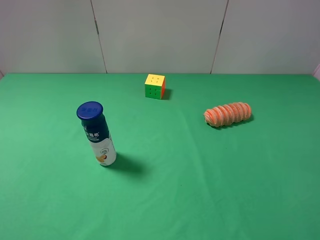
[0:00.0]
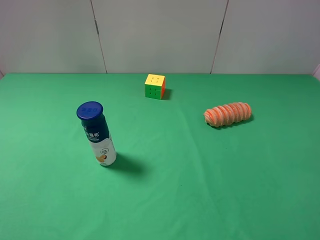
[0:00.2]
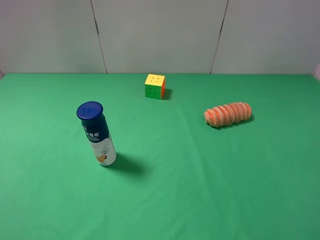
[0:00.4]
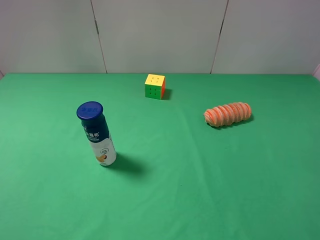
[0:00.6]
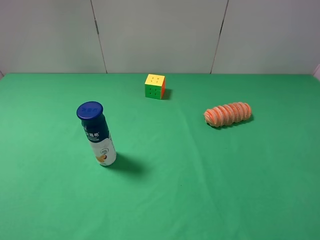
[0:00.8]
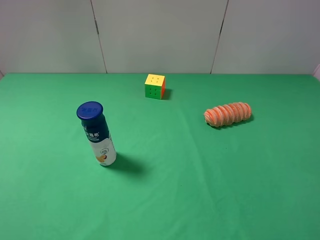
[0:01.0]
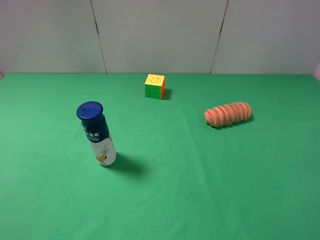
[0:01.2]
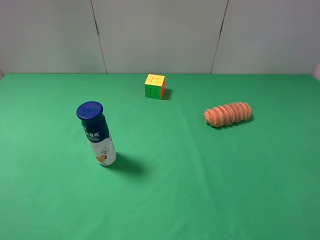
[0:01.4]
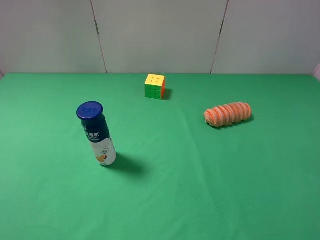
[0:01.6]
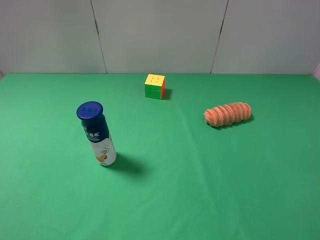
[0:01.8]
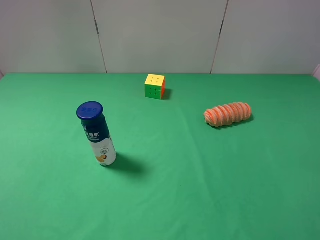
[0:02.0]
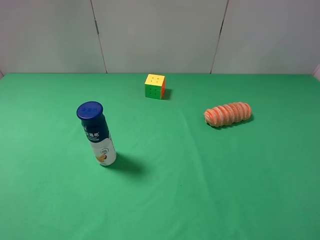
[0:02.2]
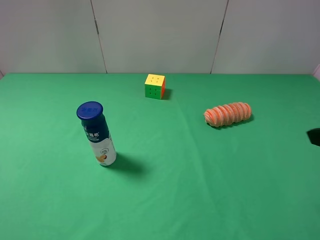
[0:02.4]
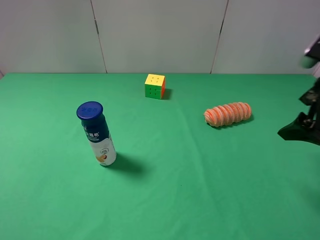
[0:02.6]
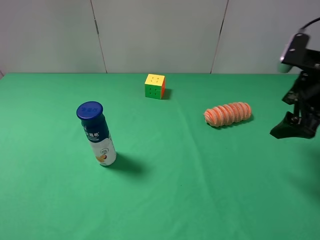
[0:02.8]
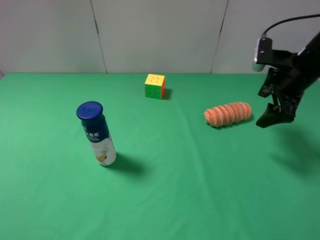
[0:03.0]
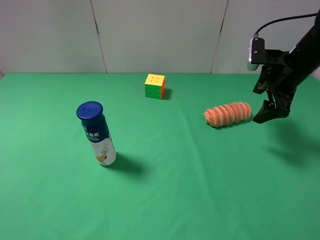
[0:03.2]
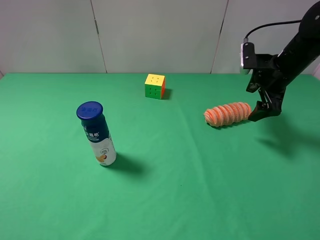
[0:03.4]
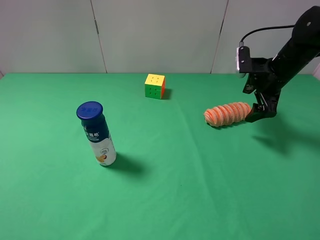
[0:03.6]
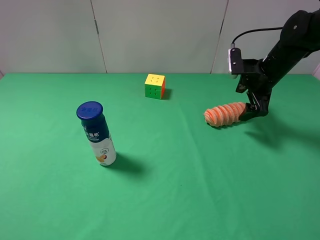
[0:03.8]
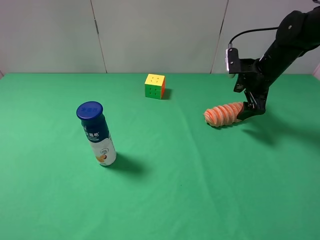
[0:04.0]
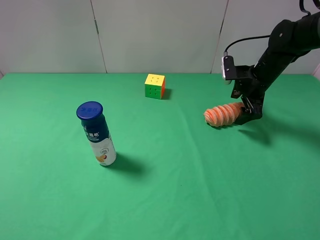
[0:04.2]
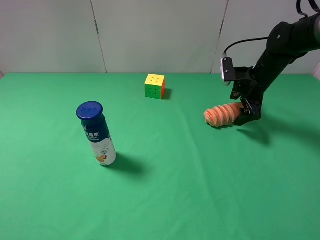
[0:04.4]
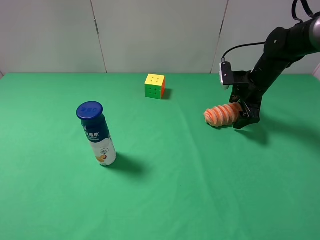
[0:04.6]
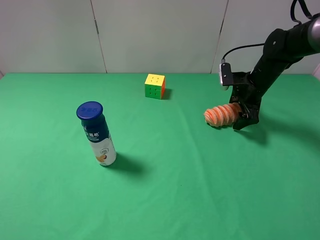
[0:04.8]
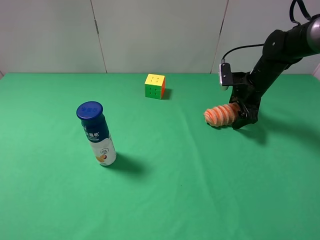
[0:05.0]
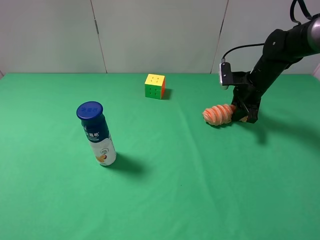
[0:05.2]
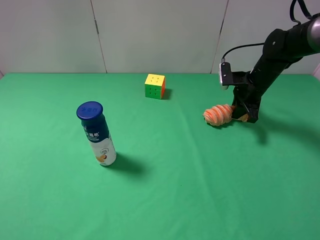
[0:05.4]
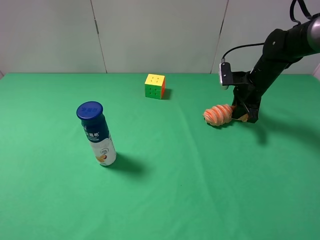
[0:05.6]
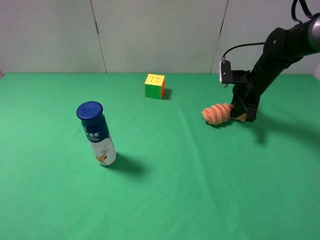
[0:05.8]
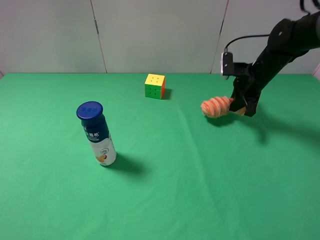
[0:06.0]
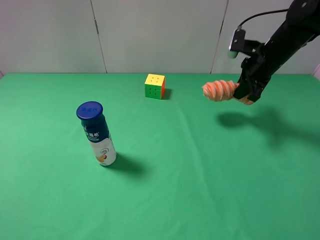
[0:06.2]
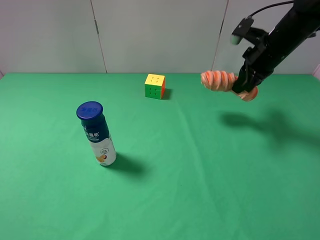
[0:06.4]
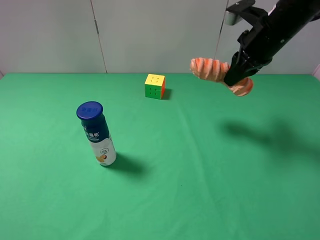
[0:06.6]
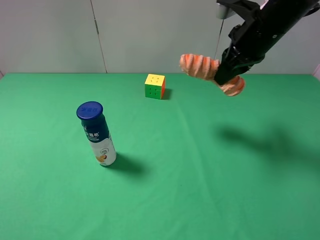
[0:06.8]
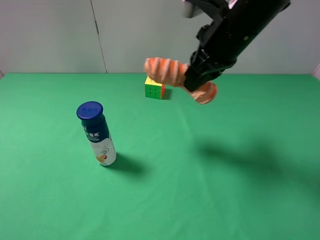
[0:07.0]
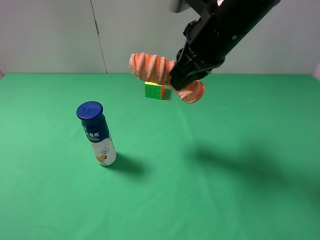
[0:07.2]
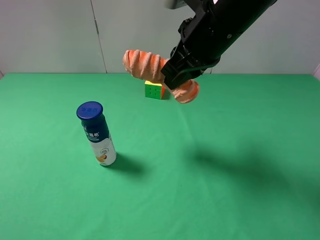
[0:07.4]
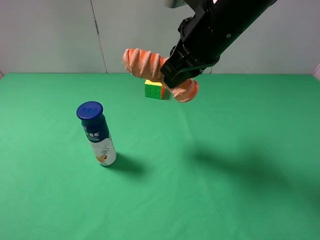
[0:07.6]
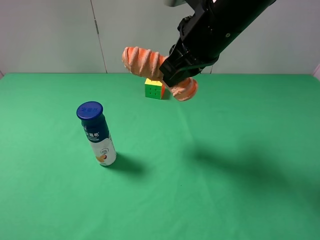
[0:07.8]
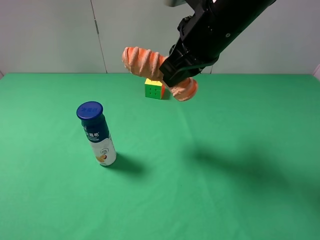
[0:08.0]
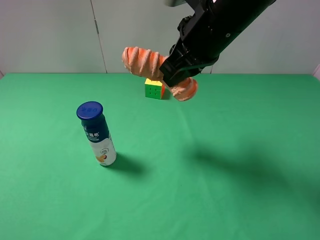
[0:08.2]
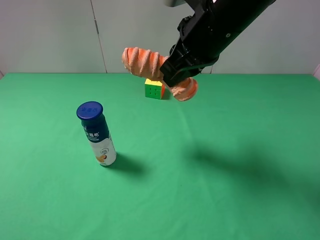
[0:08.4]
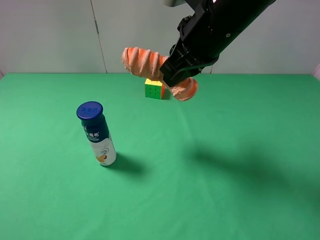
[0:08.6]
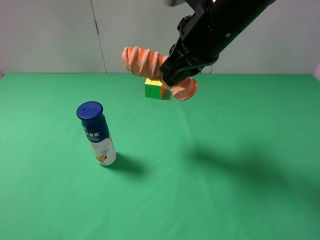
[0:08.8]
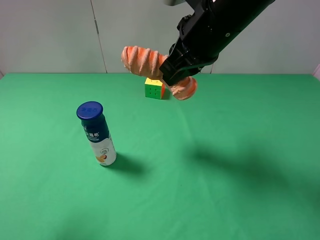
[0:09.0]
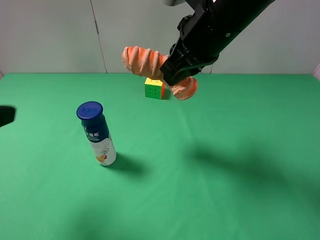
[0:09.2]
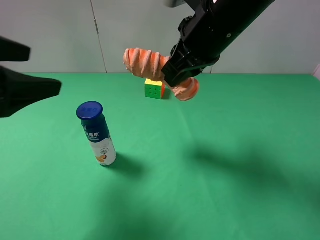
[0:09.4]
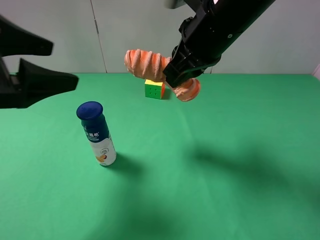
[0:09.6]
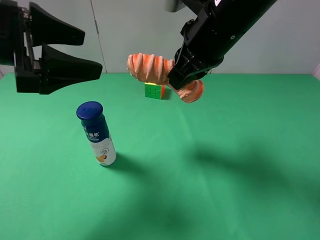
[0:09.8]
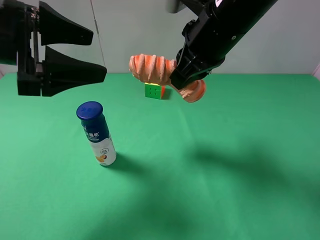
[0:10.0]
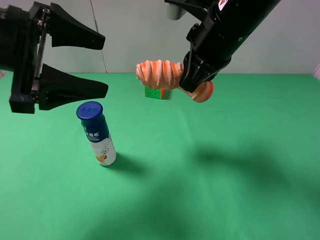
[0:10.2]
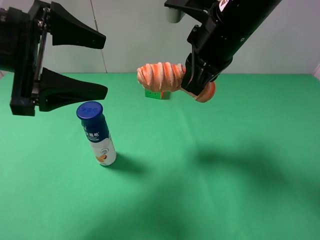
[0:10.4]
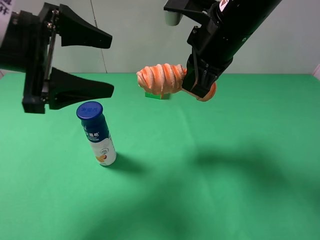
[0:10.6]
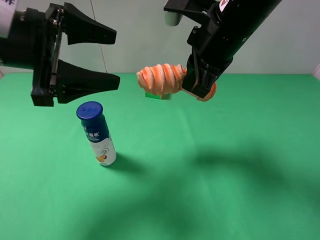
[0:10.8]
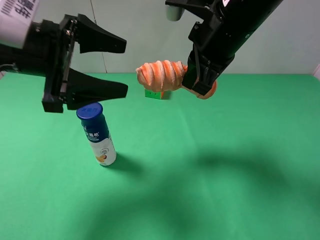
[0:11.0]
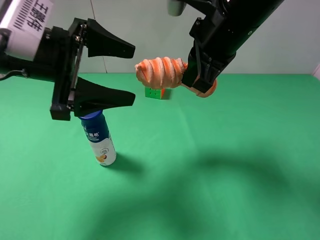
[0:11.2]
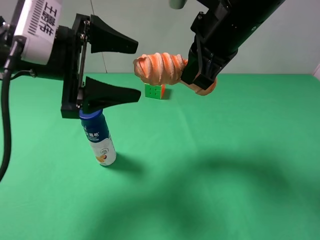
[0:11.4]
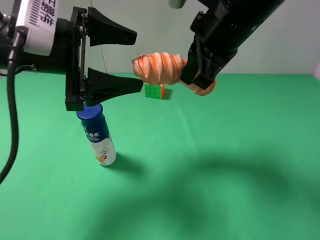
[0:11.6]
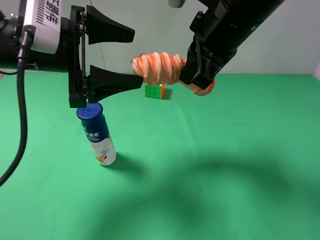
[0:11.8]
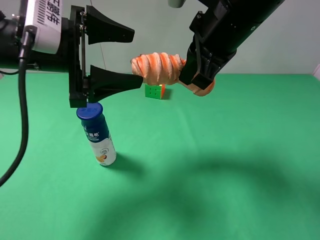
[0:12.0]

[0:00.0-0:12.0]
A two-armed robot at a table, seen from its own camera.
Task of the whole recording: use the right gripper to pick up the item and transfer it from the right gripper to the left gripper.
Step, 0:00.0 to 0:05.2: Use the right gripper to grab the bread on the right side of the table.
0:00.0 to 0:01.6: Both grippers stay put.
0:01.6 to 0:03.0: The right gripper travels forward by approximately 30 cm.
0:03.0 to 0:04.4: The right gripper is displaced forward and downward by some 10 cm.
0:04.4 to 0:06.0: The right gripper closes up.
0:06.0 to 0:07.6: The right gripper goes about 25 cm to the left, upward and backward.
0:07.6 to 0:09.0: The left gripper shifts approximately 5 cm forward.
0:09.0 to 0:10.4: The left gripper heads forward and to the right, covering approximately 15 cm.
0:10.4 to 0:12.0: The left gripper shifts by approximately 5 cm.

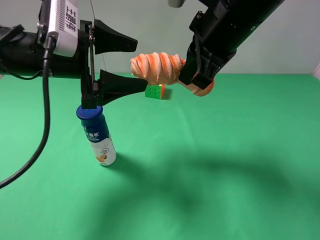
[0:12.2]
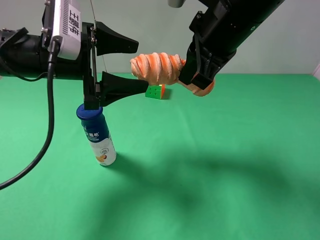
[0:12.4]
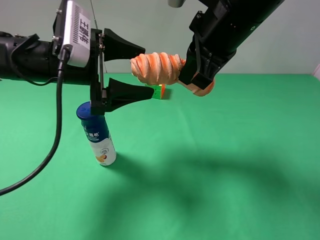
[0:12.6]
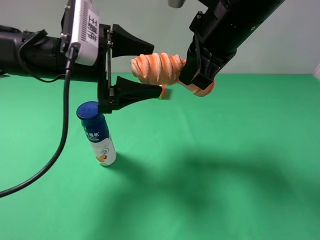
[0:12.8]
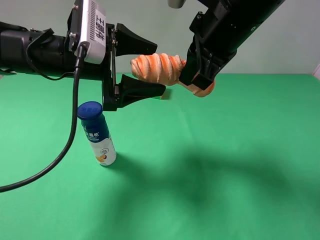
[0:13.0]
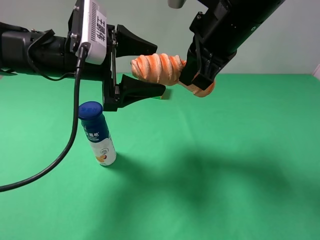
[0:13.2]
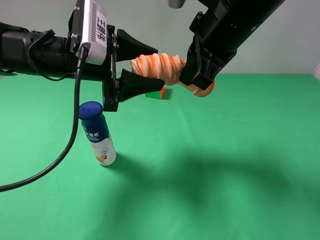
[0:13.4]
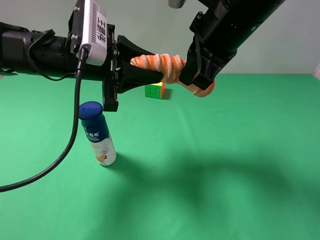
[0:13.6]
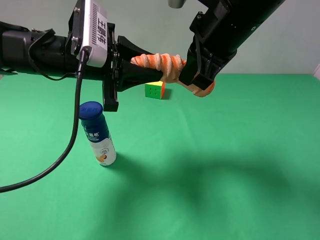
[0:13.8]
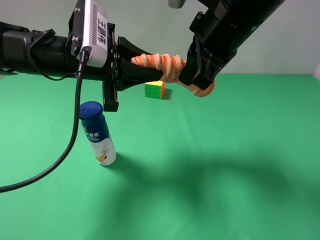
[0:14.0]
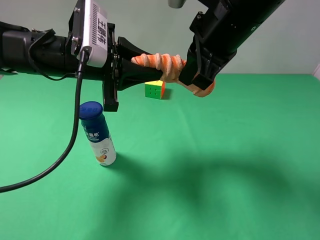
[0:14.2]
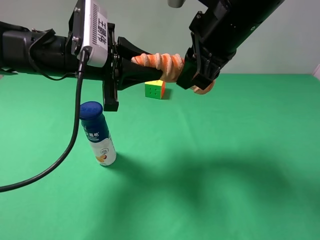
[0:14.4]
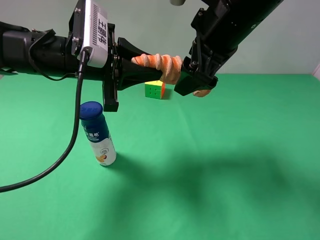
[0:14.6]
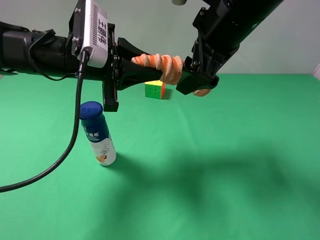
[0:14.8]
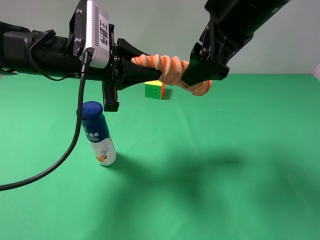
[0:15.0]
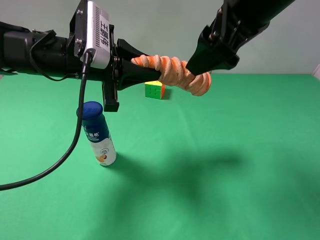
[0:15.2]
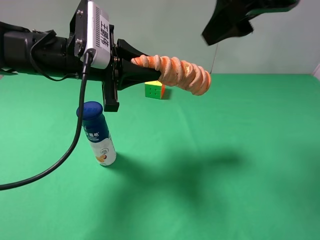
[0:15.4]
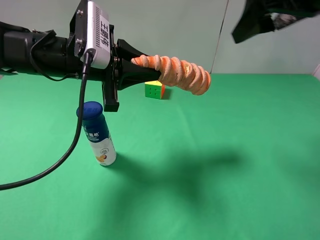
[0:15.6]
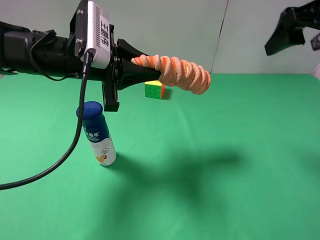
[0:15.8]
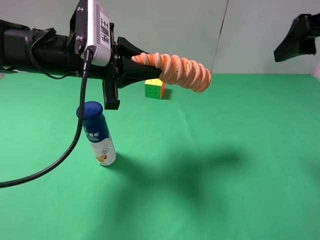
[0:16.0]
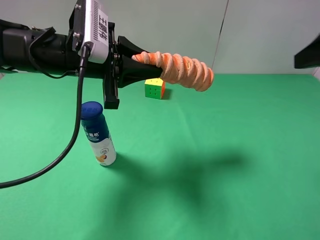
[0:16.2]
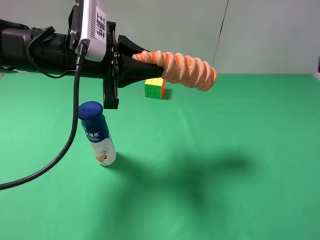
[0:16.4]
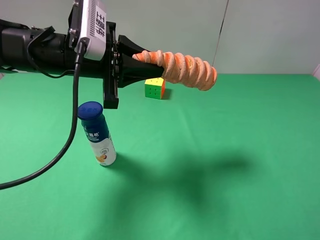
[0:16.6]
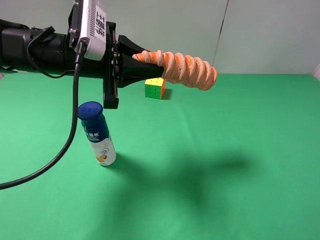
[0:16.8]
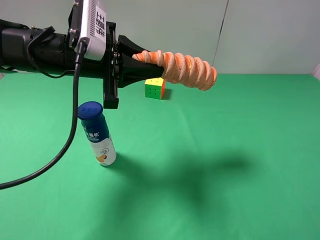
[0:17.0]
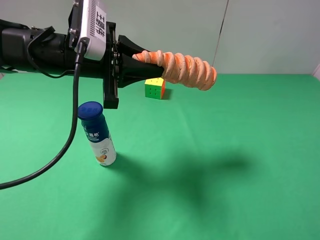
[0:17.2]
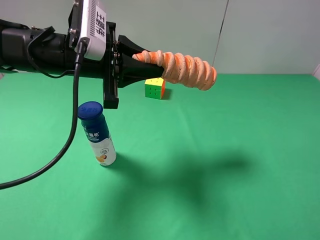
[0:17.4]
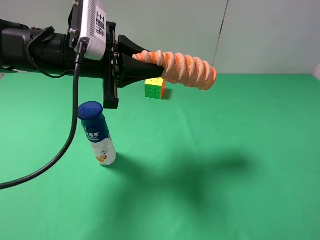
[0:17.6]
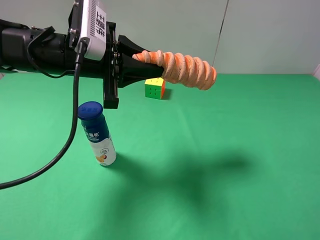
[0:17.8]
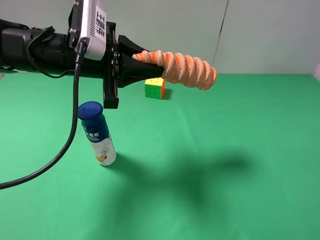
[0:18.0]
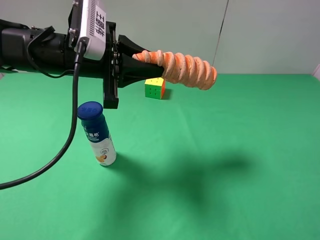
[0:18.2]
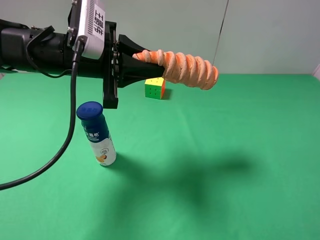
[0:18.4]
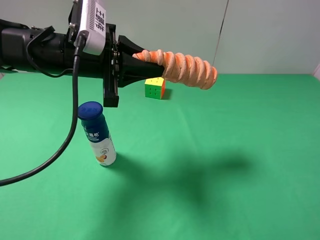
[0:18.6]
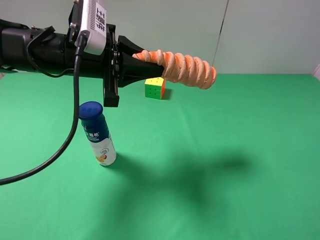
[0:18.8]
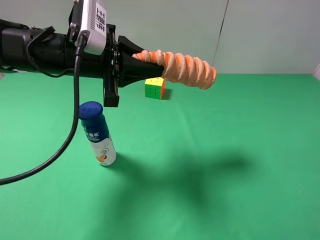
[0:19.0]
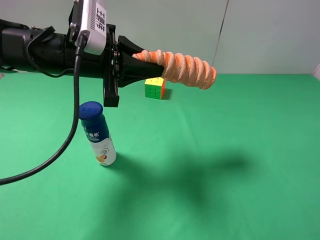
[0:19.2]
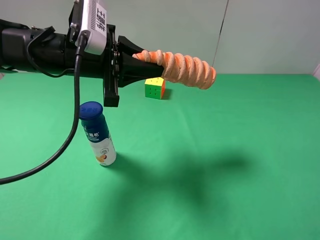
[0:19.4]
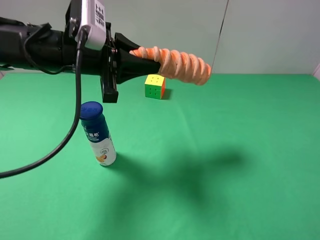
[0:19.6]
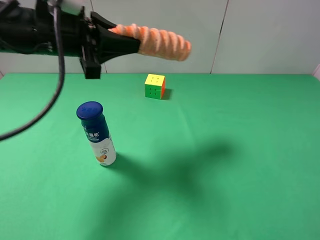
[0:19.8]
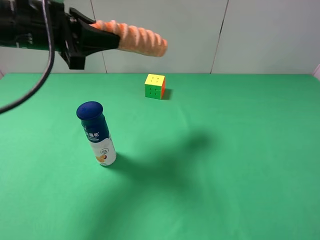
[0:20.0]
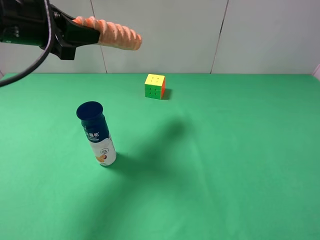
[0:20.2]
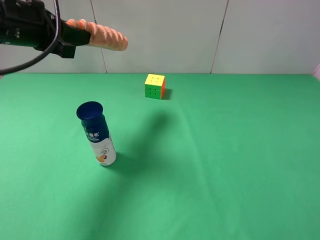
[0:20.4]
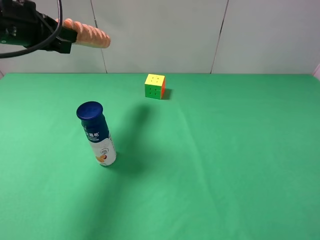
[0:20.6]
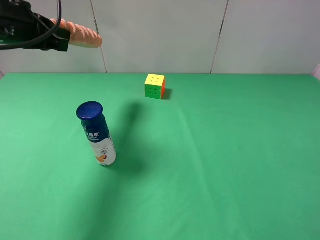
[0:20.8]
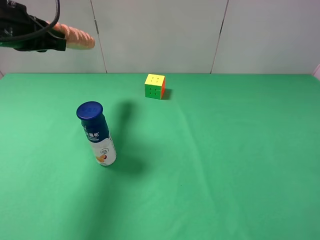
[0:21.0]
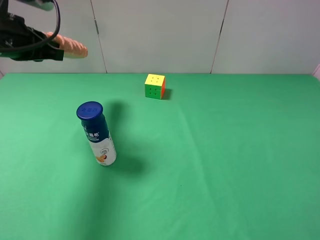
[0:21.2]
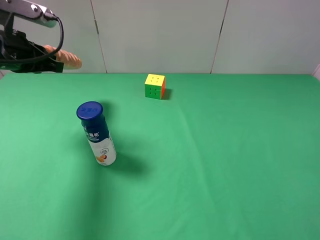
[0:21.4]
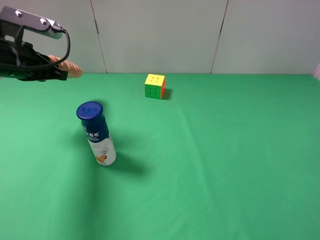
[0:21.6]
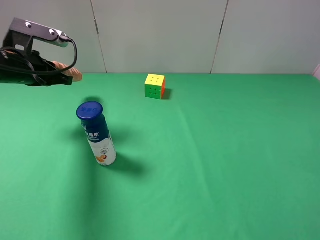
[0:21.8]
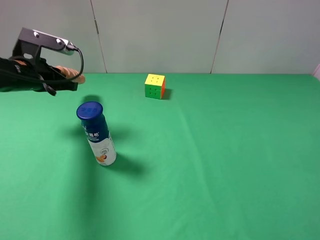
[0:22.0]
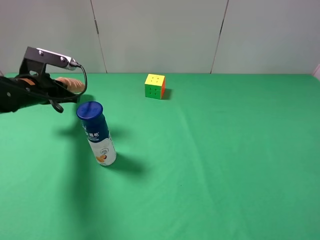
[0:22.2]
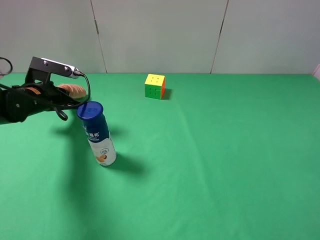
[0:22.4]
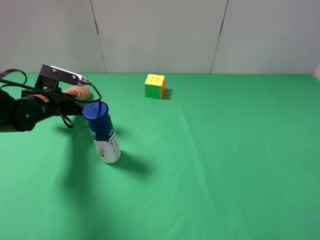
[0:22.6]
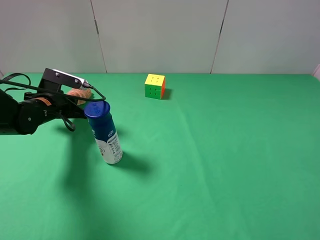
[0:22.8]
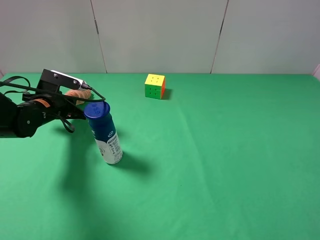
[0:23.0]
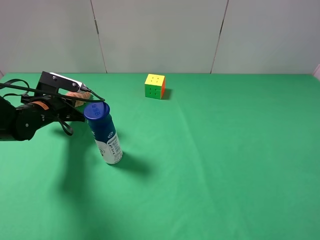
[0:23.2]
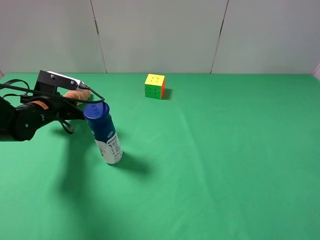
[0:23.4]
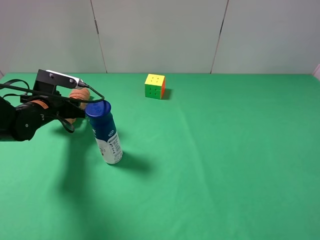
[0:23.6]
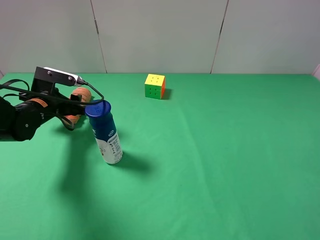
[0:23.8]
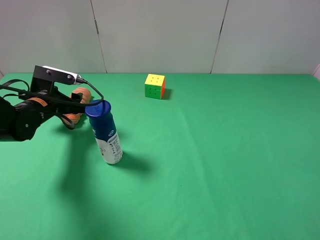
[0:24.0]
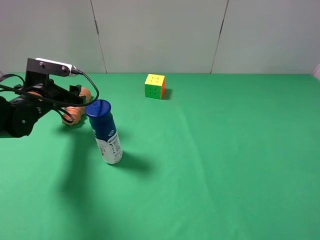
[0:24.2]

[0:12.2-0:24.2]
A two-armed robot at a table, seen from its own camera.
Task of the whole recording: use the right gripper to pick up the item and transfer it from the right gripper to the left gripper.
Step, 0:12.2 to 0:14.8: Pass the bread to the left gripper.
Step, 0:15.0 to 0:23.8: The left gripper places bread on the left side of the table.
0:12.2 to 0:13.8: The left gripper closes its fingers.
0:13.8 to 0:15.2: The right gripper shifts by approximately 5 cm, and opens.
0:15.2 to 0:16.6: The right gripper moves backward and to the right, some 25 cm.
0:18.2 to 0:19.8: The left gripper ends up some 5 cm from where it was.
0:19.8 to 0:21.2: The left gripper heads to the left, covering some 10 cm.
0:21.2 to 0:22.6: The left gripper moves downward, about 15 cm.
0:22.6 to 0:24.2: The left gripper opens its fingers.
